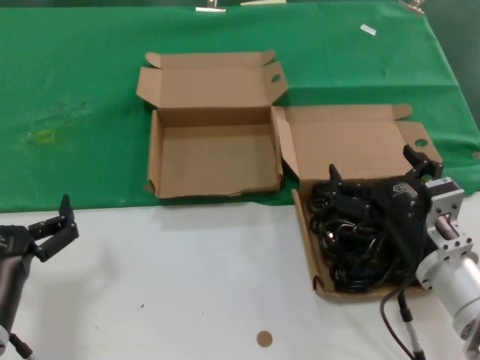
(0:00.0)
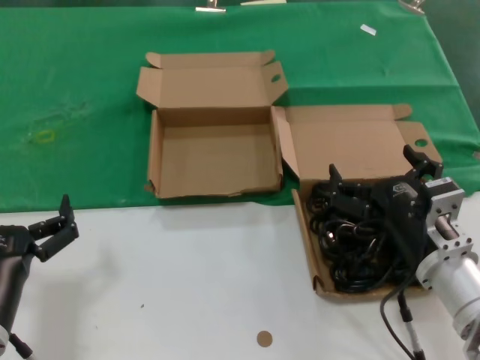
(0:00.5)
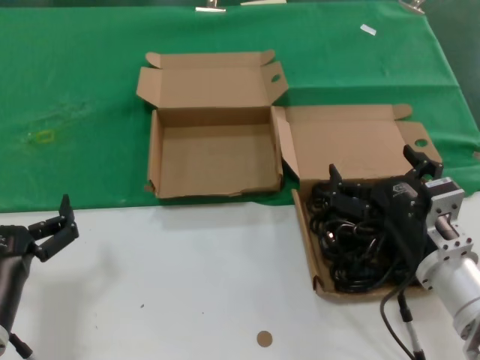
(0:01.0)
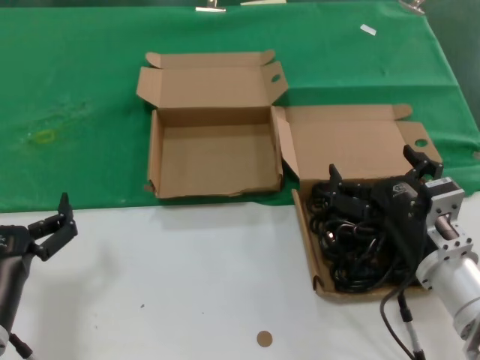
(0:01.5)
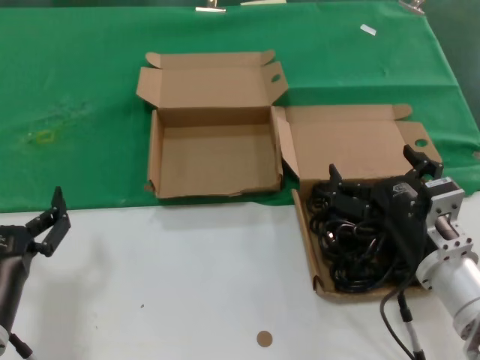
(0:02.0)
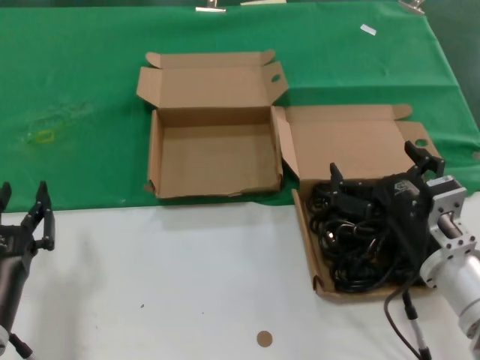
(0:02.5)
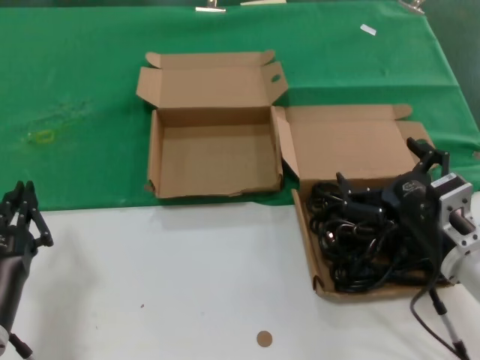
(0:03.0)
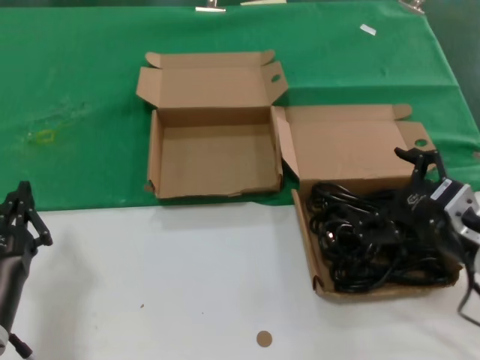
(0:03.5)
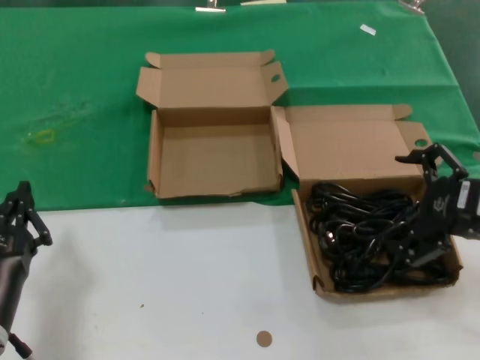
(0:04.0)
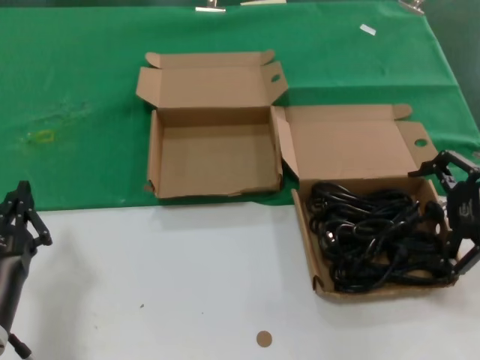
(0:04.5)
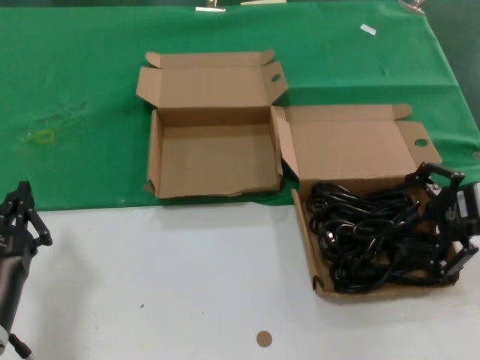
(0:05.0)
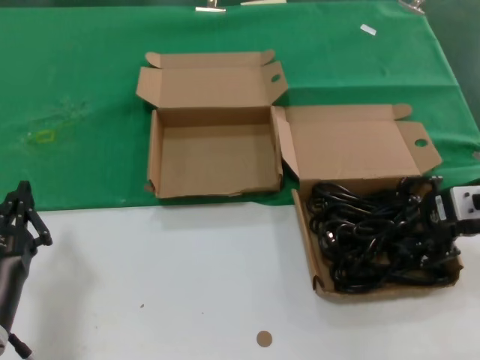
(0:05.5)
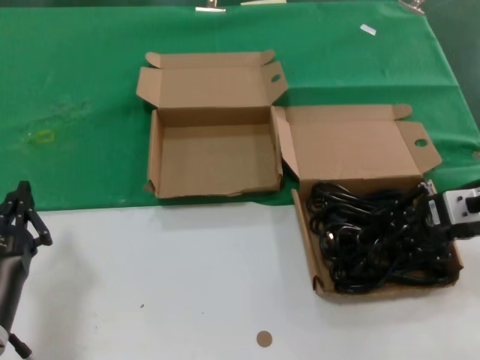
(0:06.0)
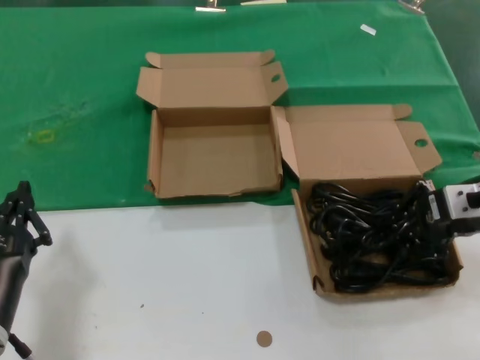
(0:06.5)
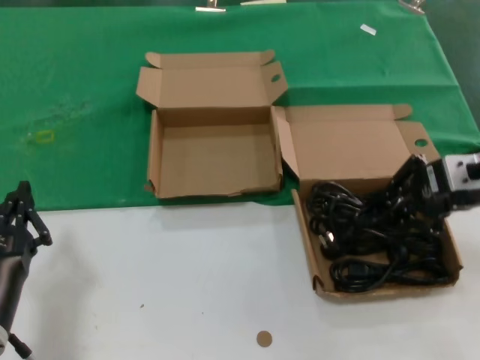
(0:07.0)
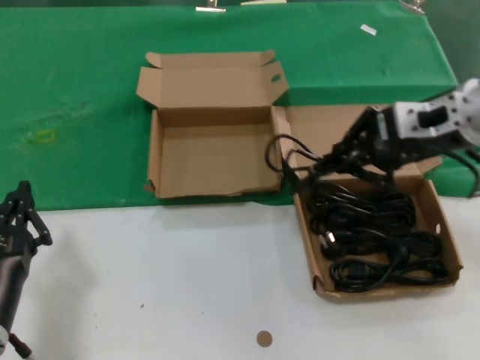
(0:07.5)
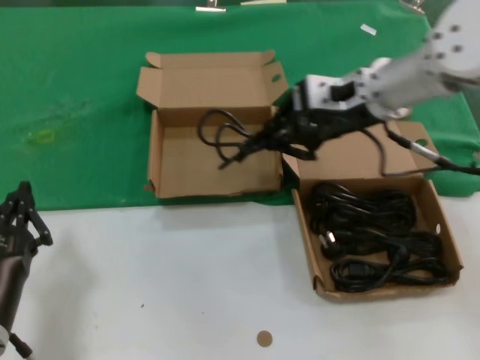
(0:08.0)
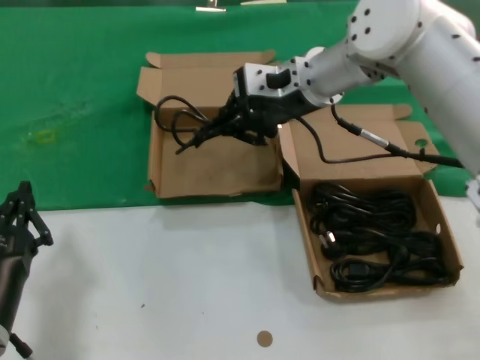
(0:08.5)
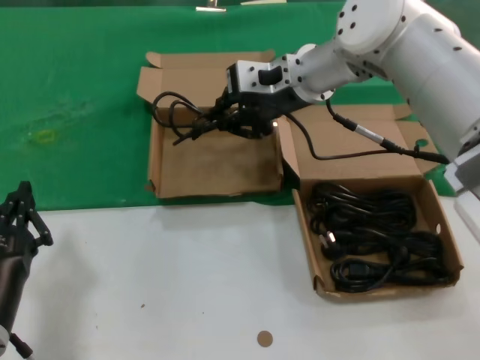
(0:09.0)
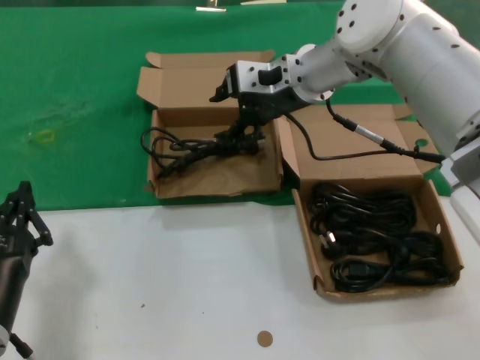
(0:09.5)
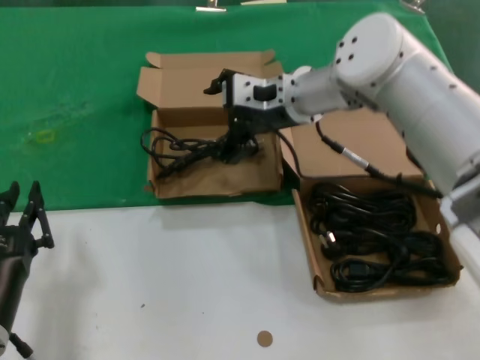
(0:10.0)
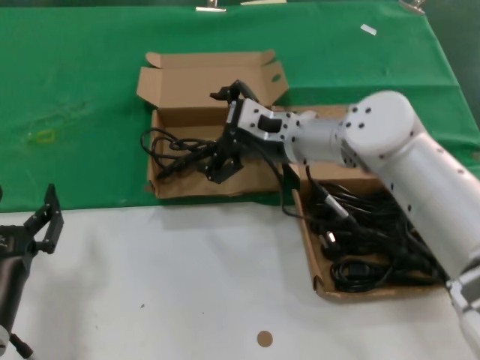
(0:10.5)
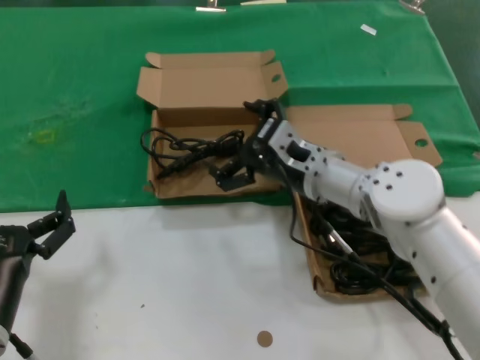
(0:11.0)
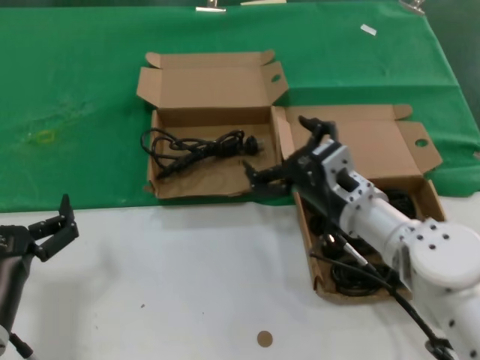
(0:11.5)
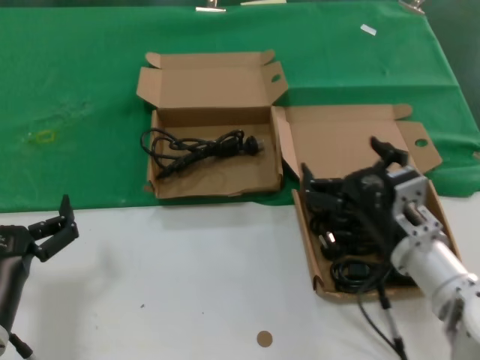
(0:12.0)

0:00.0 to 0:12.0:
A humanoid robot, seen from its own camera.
Task of the whole recording: take the parts from the box containing them and put them into an empty box.
Step, 0:00.0 to 0:06.0: Grasp the data cable.
Step, 0:06.5 to 0:09.0: Place the data cable in the another box.
0:00.0 to 0:02.0: Both hands stay about where they are.
0:02.0 to 0:04.0: The right hand goes about 15 cm to the right and upward.
0:04.0 to 0:06.0: The right hand moves forward, about 10 cm.
0:06.0 to 0:08.0: The right hand goes about 20 cm to the left, upward and forward.
0:08.0 to 0:10.0: The right hand shifts approximately 10 cm to the left and forward.
0:10.0 to 0:12.0: The right hand shifts approximately 30 cm backward, downward and to the right.

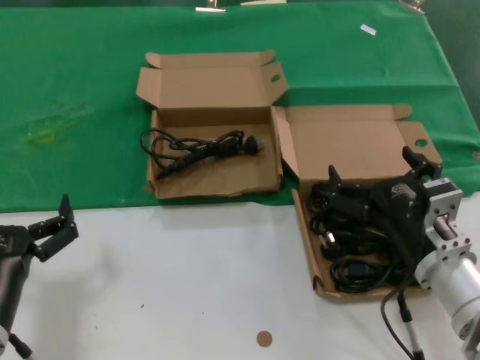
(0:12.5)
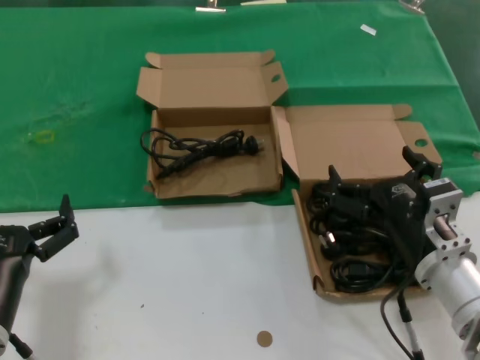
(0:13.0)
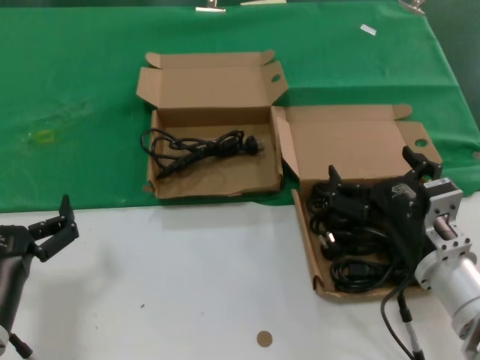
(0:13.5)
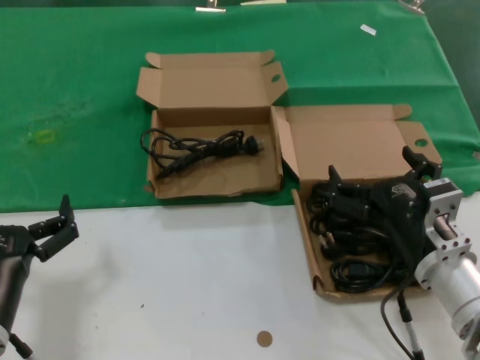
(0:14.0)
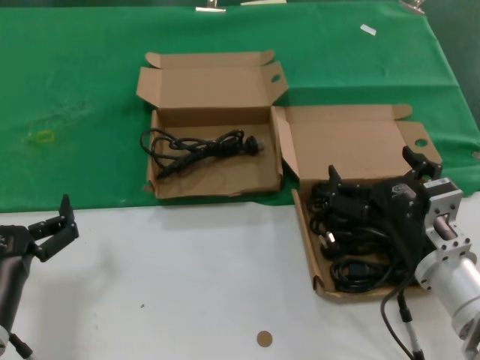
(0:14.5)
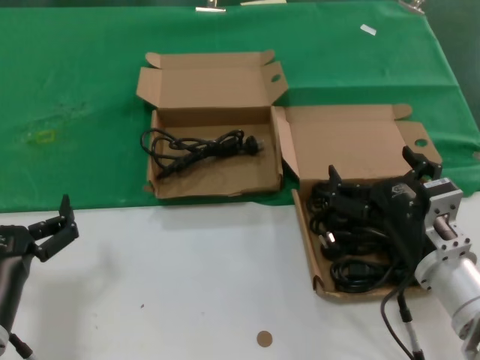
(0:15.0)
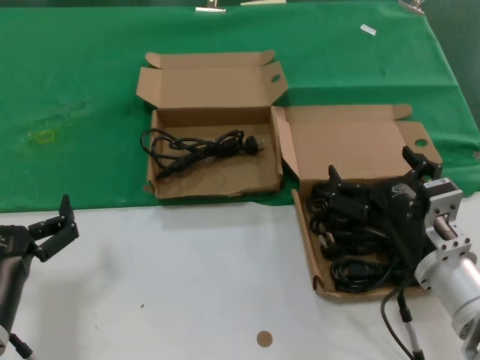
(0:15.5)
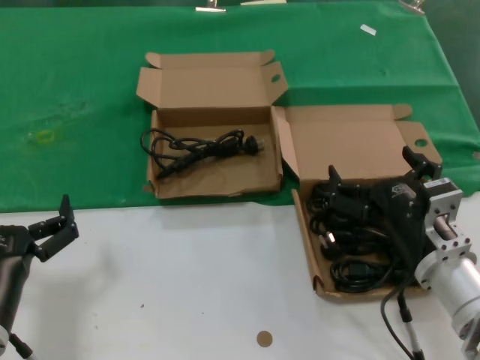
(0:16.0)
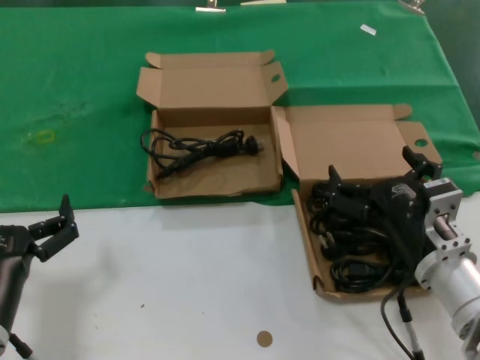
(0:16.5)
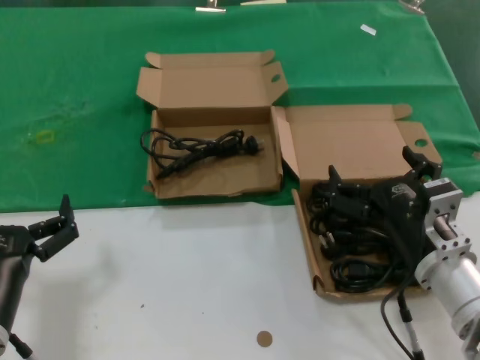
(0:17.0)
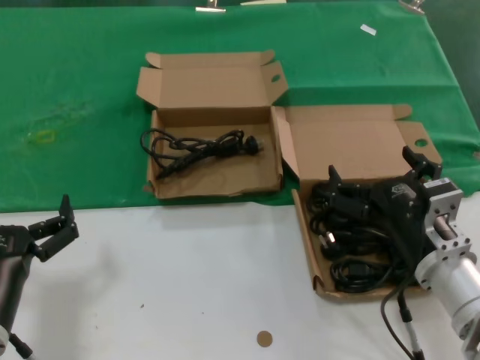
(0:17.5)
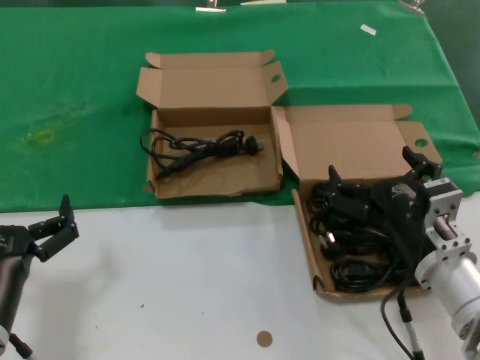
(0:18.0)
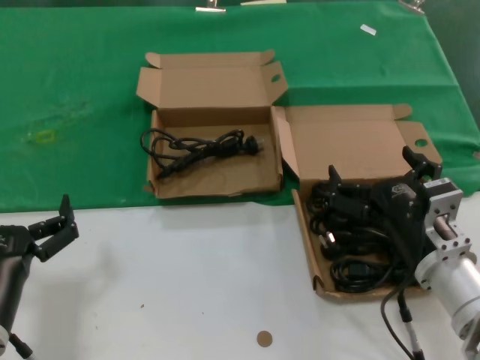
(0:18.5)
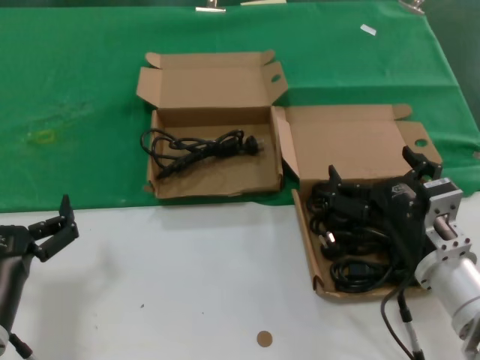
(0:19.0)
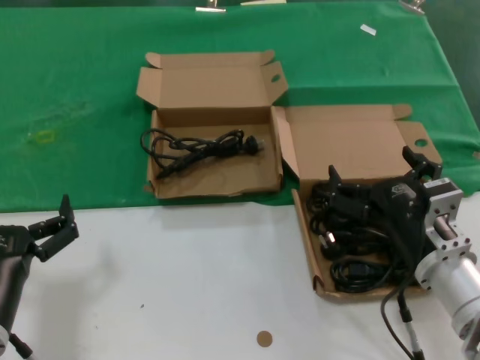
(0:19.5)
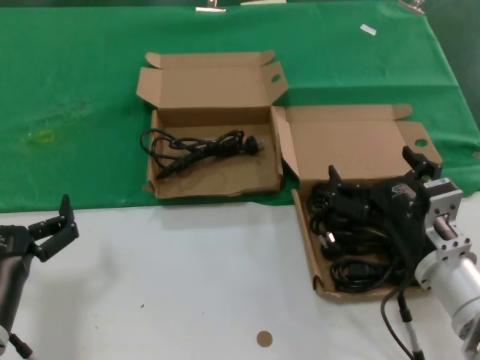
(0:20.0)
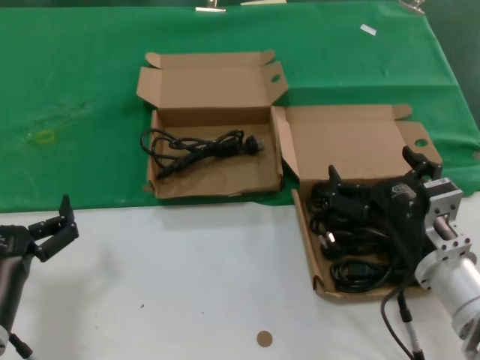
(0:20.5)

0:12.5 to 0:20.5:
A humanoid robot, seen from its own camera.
Task of the whole recording: take the parts from the box containing them and put them into an empty box.
0:12.5 to 0:20.5: The two hands keep their place.

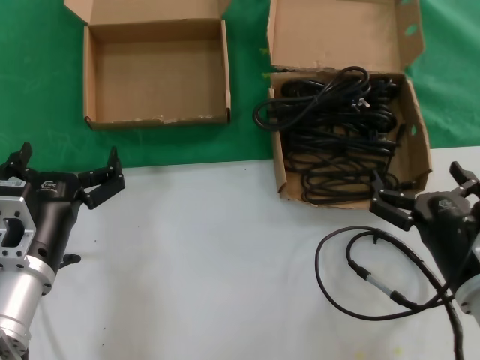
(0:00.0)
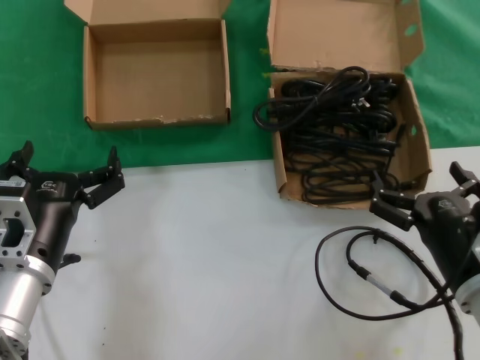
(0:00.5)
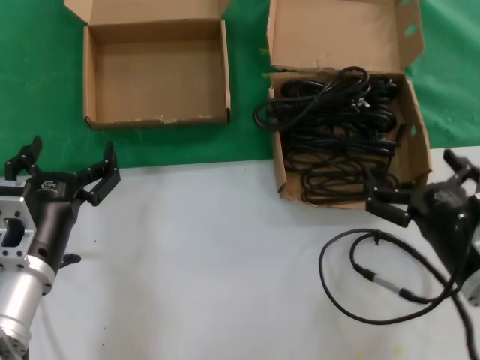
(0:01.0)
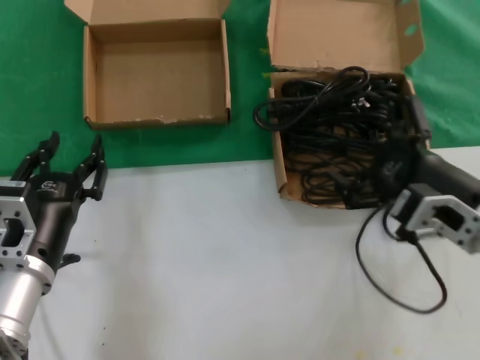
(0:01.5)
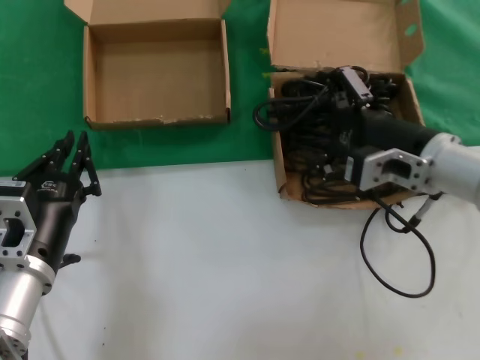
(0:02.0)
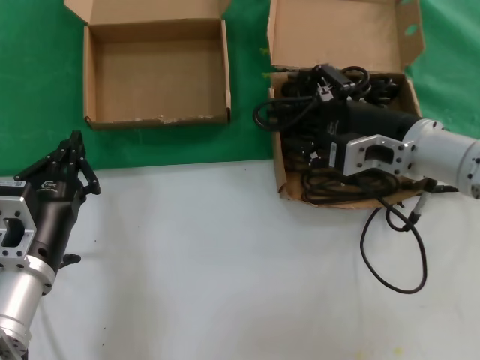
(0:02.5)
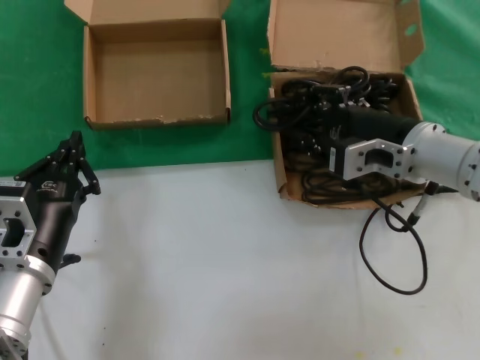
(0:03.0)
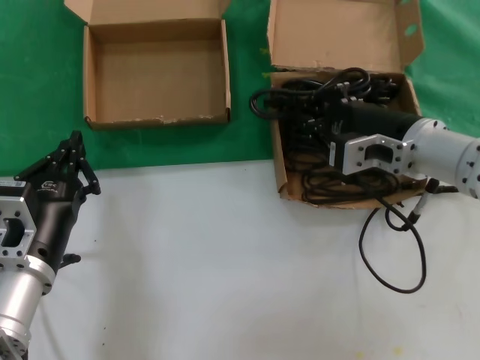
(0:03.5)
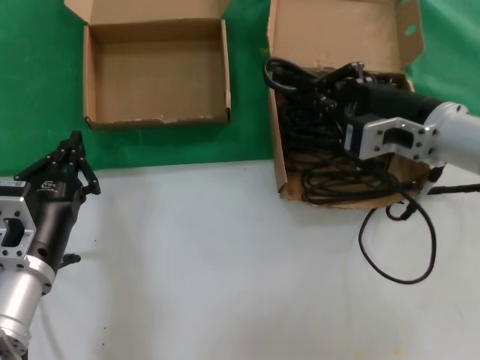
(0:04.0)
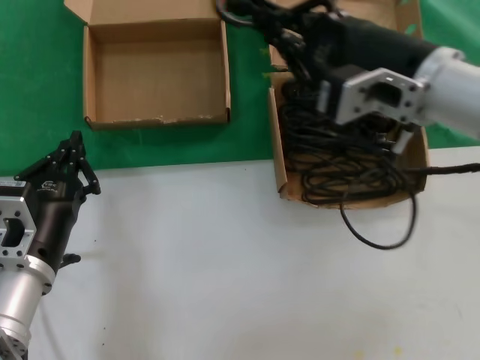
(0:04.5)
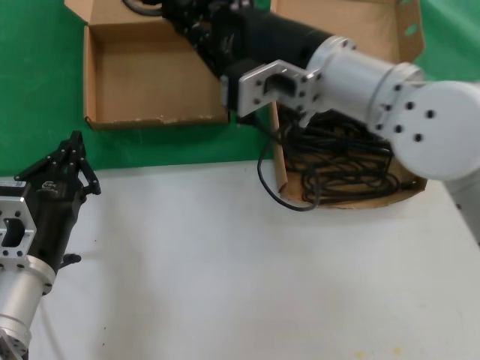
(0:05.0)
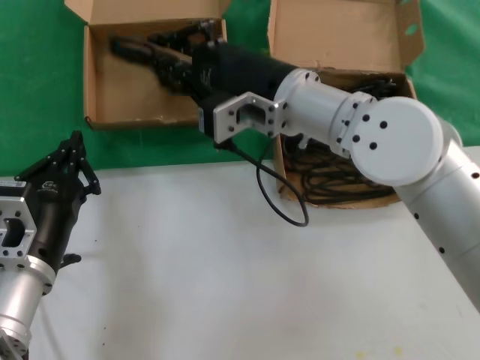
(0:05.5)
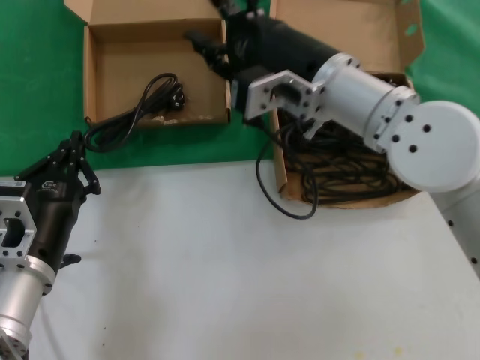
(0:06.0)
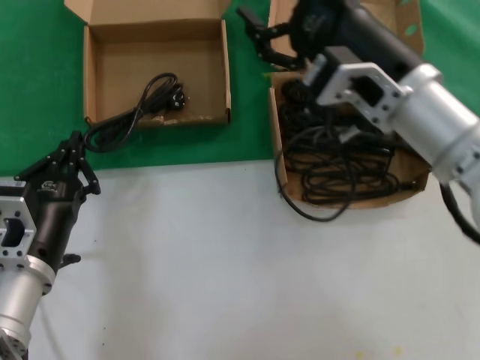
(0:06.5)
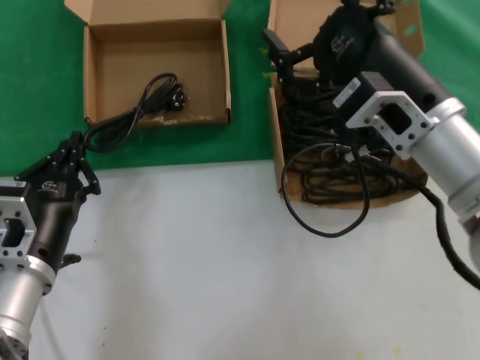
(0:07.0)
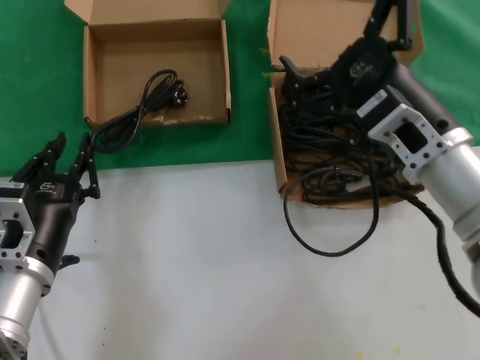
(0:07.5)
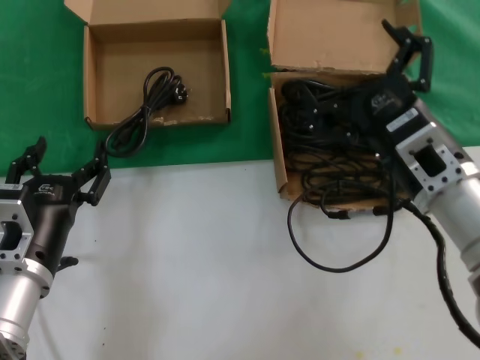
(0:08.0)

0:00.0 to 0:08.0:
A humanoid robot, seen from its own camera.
Task of the whole recording: take the parts from the box containing them and put them into an empty box.
Step, 0:00.0 to 0:03.0: Grasp the data cable.
Step, 0:03.5 to 0:05.5: Place the data cable in the another box.
0:00.0 to 0:02.0: The right hand is displaced forward and upward by approximately 15 cm.
0:02.0 to 0:04.0: There are only small adjustments of the hands.
0:04.0 to 0:06.0: The right hand heads to the left, covering roughly 10 cm.
0:06.0 to 0:08.0: The right hand is displaced to the right, downward and backward by some 15 cm.
